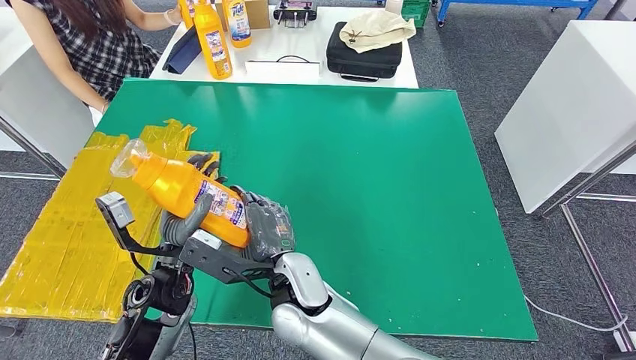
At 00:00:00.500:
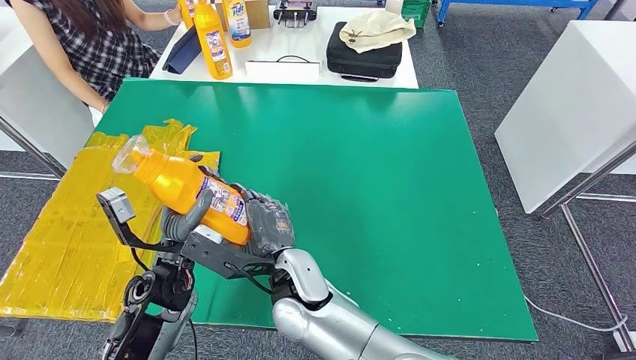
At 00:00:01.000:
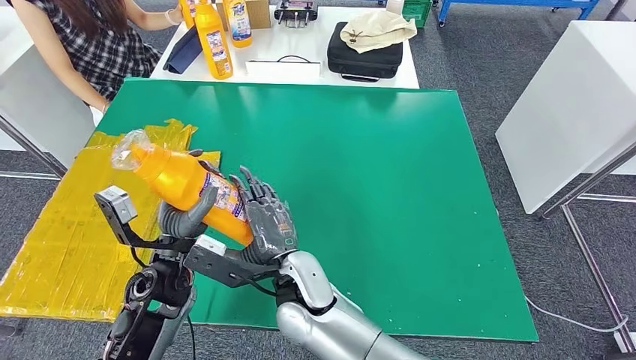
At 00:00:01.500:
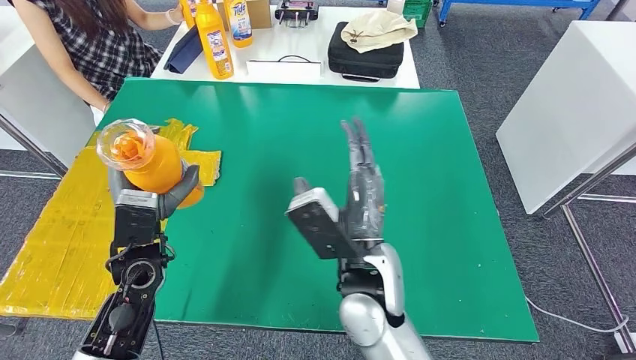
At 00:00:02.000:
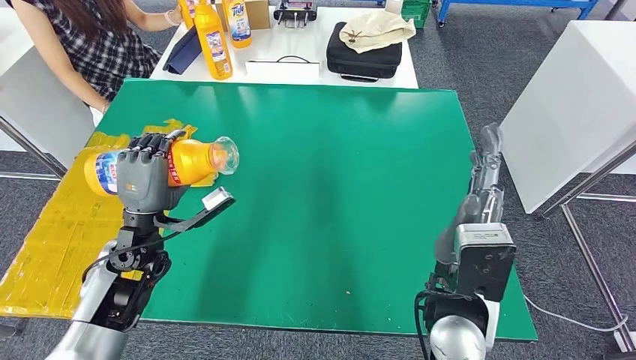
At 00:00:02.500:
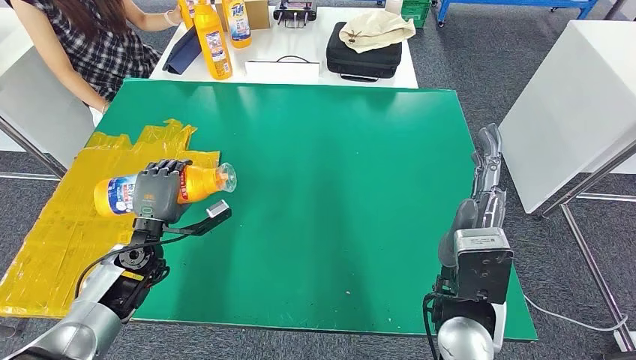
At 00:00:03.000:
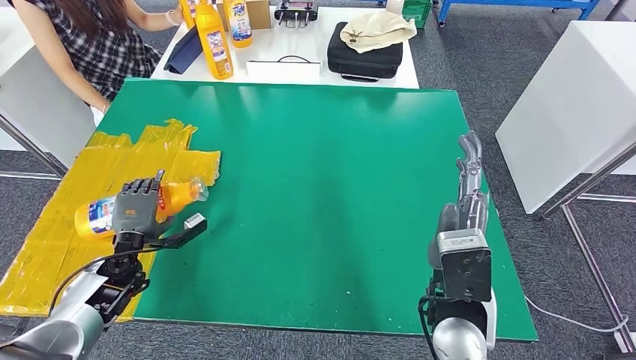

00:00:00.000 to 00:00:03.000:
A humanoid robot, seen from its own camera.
Step, 00:00:00.000 to 00:00:03.000: Flip the fast-moving consumer goods bottle to the front side.
00:00:01.500 to 00:00:03.000: The right hand is displaced to the right by roughly 10 cm. The left hand moves downward and to the left, about 15 cm.
